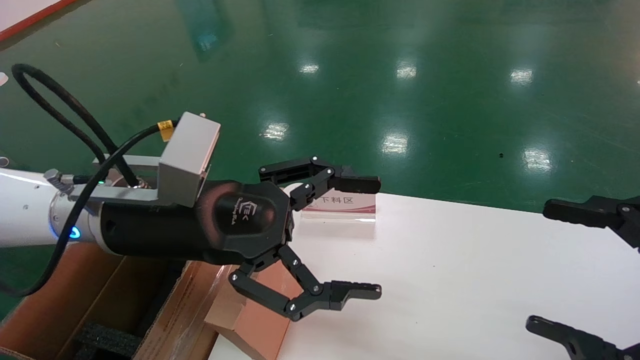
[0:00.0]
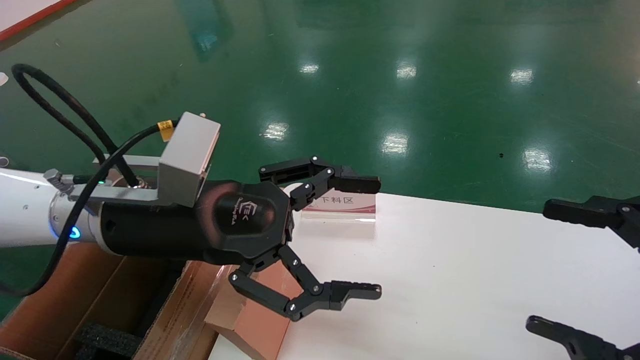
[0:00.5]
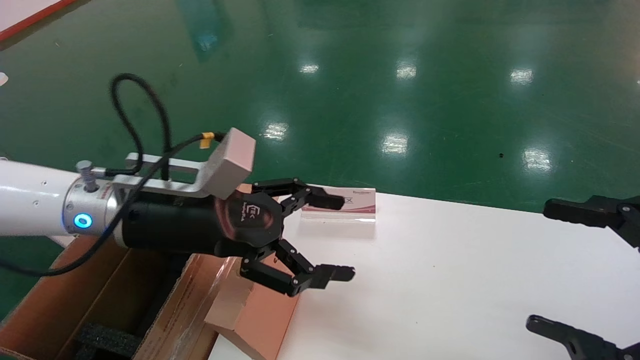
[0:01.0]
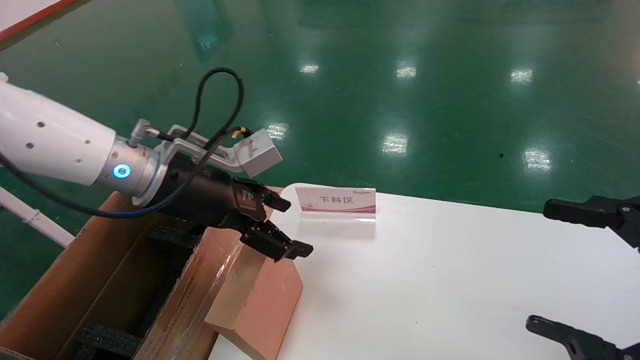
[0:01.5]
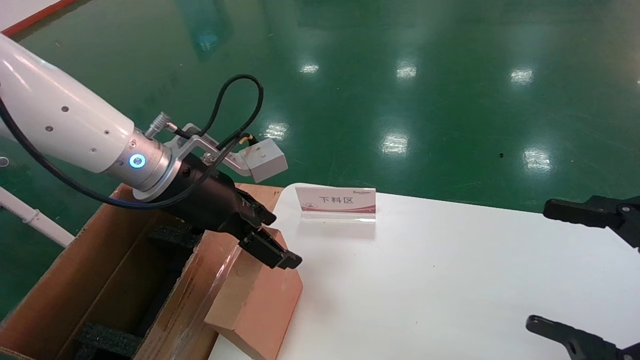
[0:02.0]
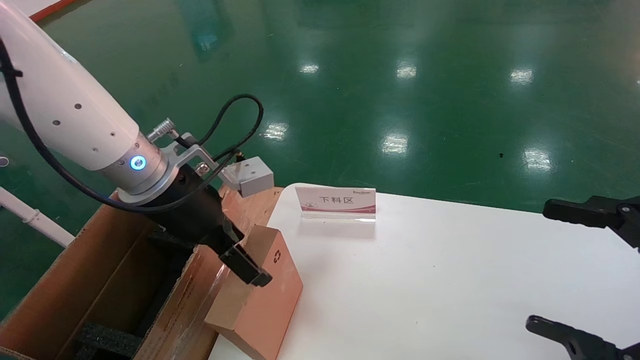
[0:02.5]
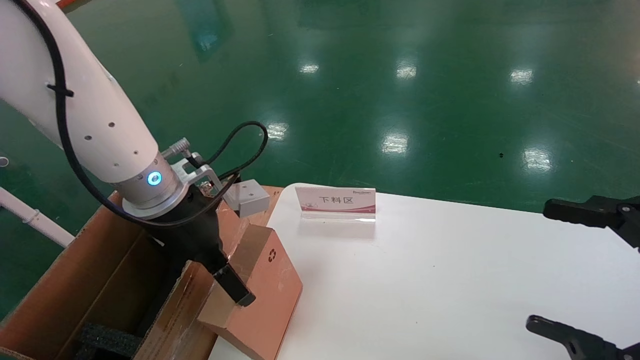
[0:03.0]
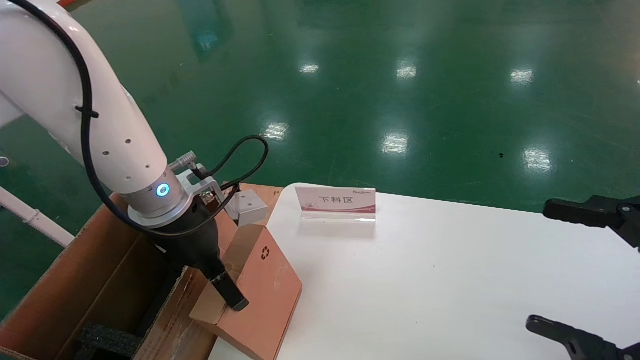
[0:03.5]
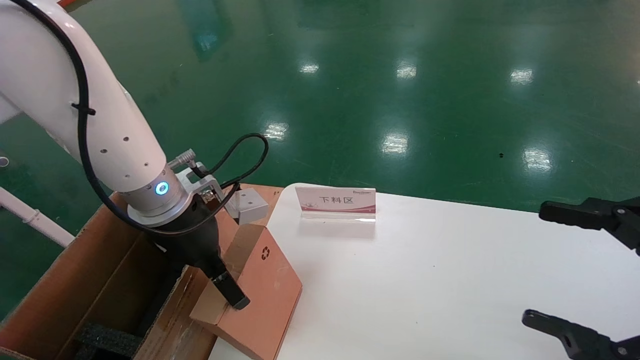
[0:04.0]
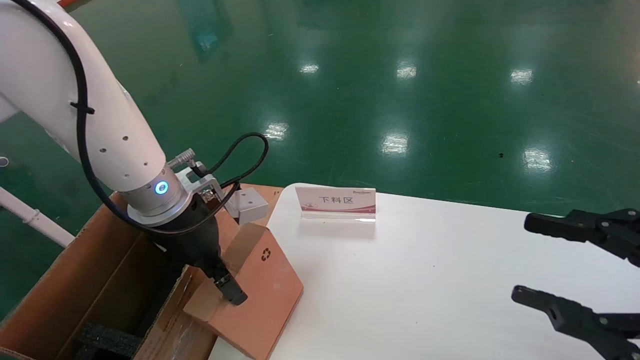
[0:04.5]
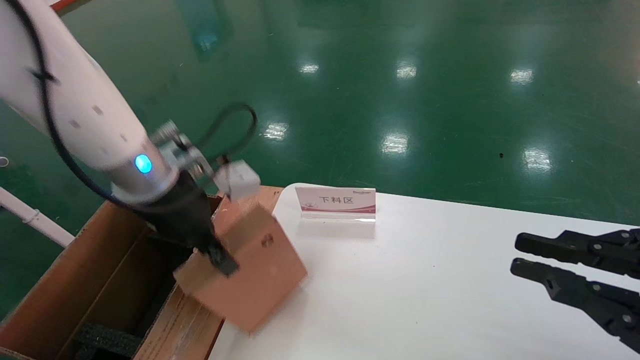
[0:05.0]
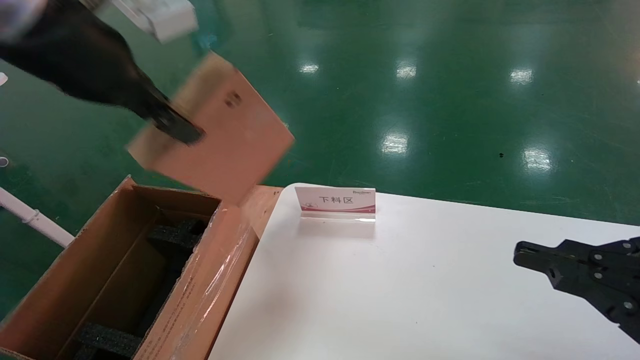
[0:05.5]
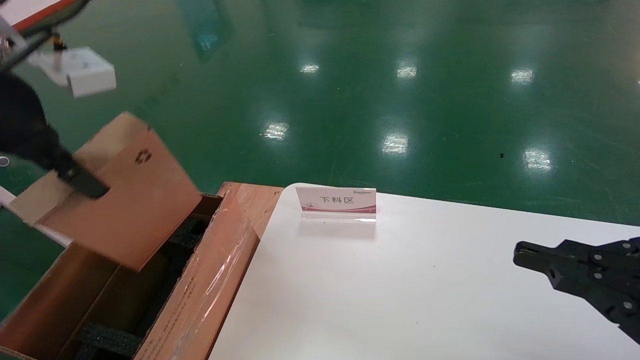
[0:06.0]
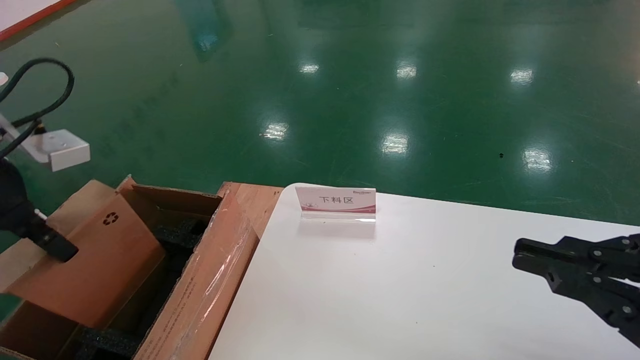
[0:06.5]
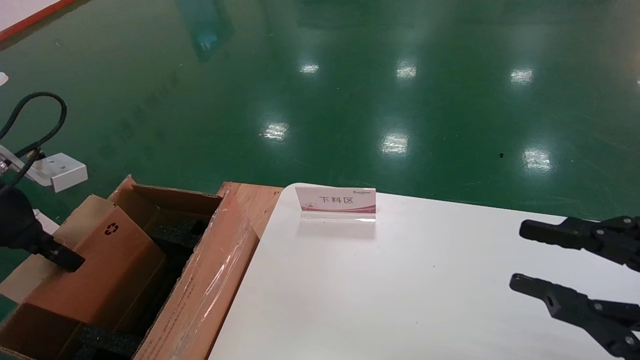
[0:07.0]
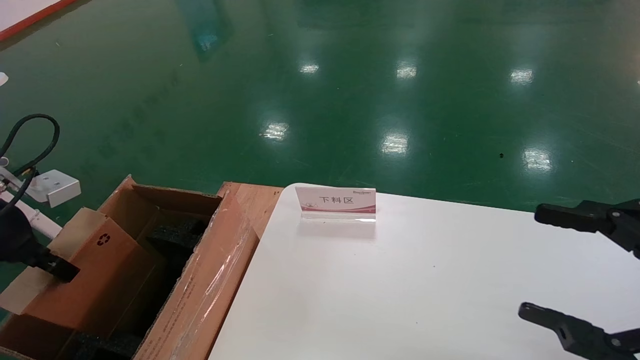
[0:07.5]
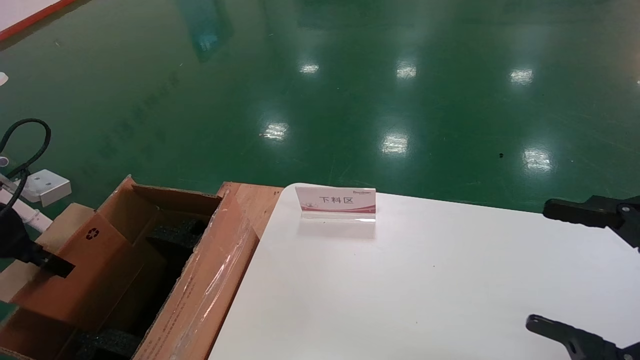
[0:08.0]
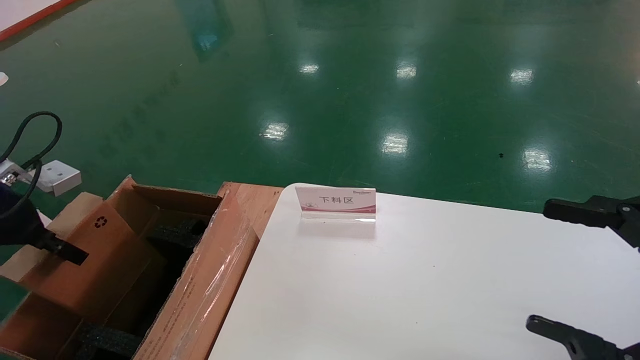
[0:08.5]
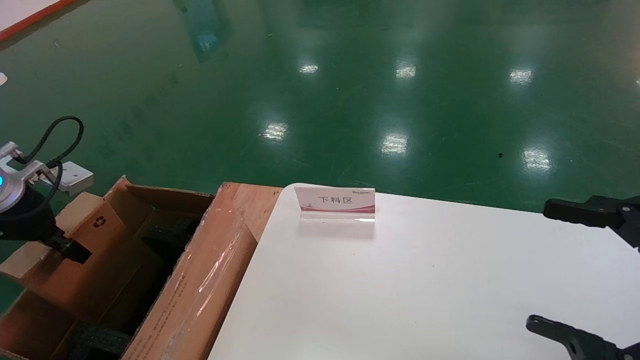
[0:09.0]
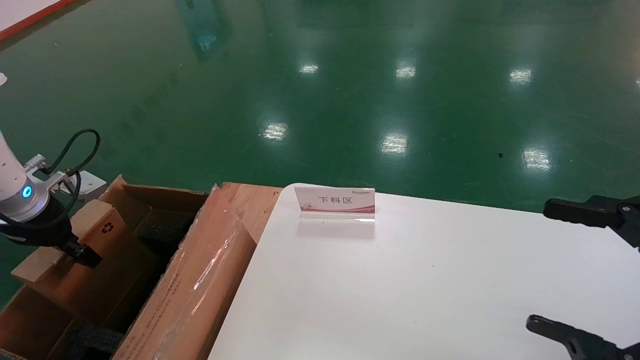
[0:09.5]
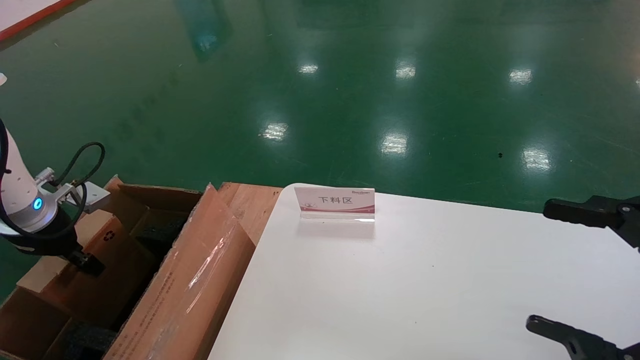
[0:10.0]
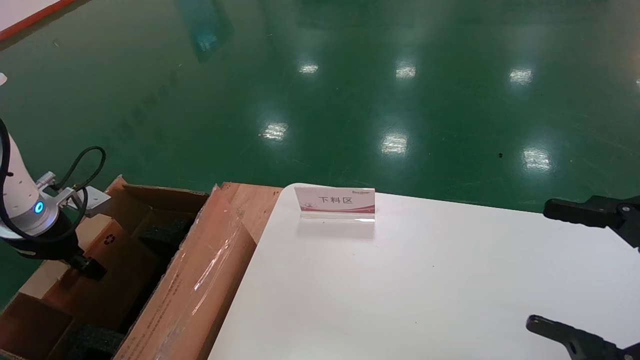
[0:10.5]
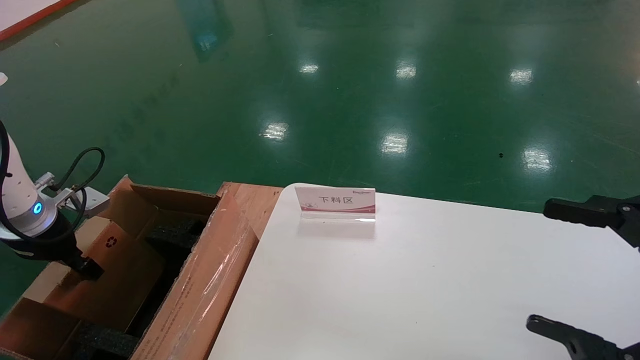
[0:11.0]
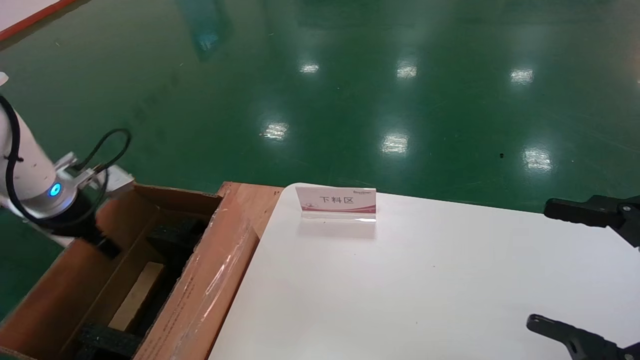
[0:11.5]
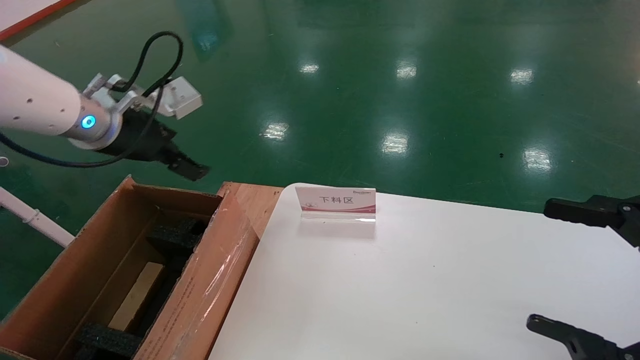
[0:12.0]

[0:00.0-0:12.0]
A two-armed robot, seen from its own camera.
Task of the whole recording: pick up the small cardboard box and load it into the large cardboard box.
Step, 0:01.5 to 0:05.5: Pick up the mouse and power cord box.
Step, 0:06.0 to 0:12.0: Place the mouse and power cord box into the case.
0:00.0 to 0:02.0: The left gripper is displaced forward by approximately 5 cm.
0:04.0 to 0:06.0: The right gripper closes. Meanwhile the left gripper heads upward, backward and to the left, covering about 20 cm, and closes up.
0:06.0 to 0:08.0: The left gripper is displaced downward and to the left by approximately 20 cm. The right gripper opens.
0:08.0 to 0:10.0: The left gripper heads forward and downward, covering some 10 cm.
0:10.0 to 0:12.0: The left gripper goes approximately 15 cm to the right and upward, and opens up.

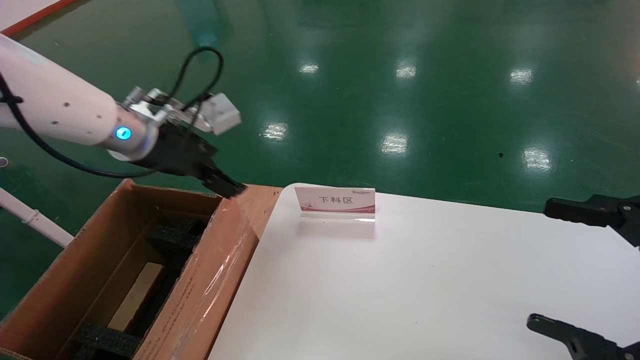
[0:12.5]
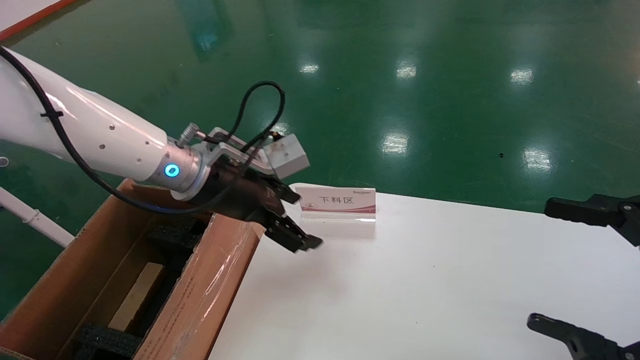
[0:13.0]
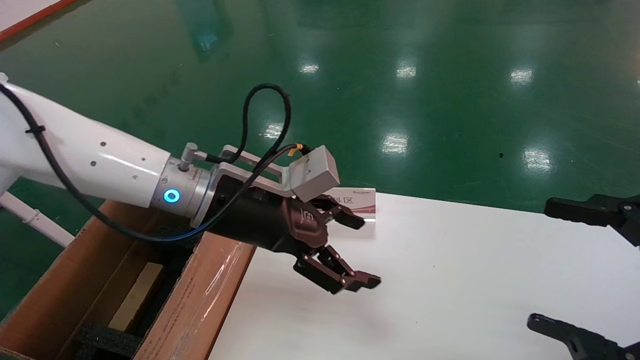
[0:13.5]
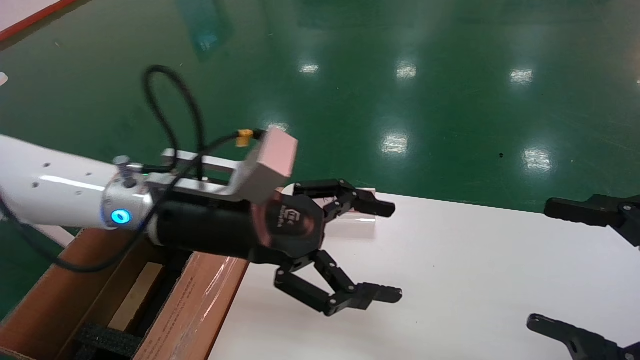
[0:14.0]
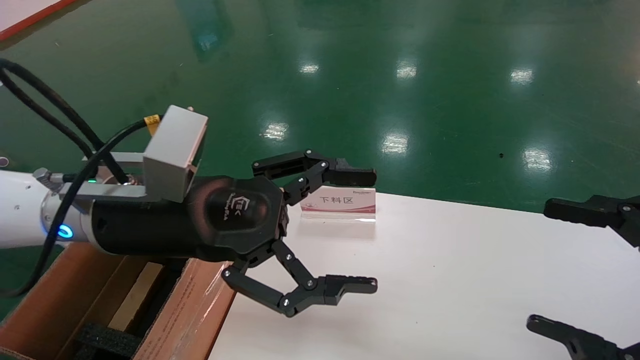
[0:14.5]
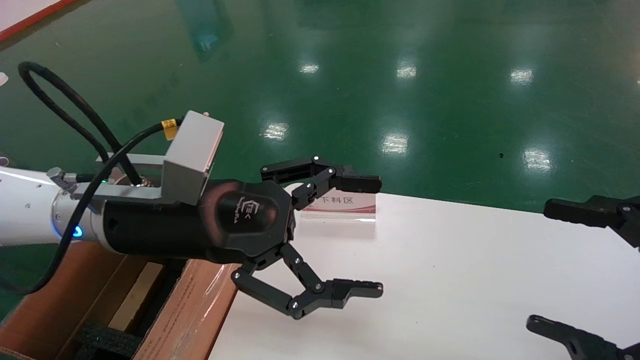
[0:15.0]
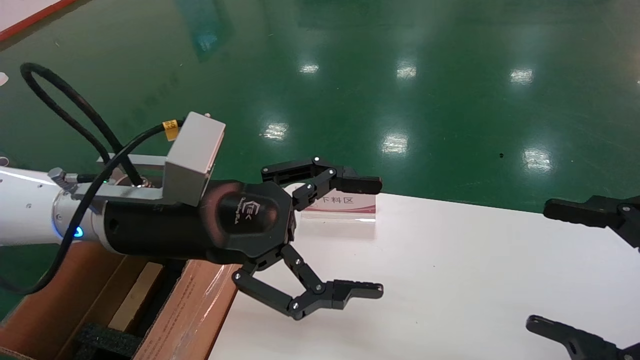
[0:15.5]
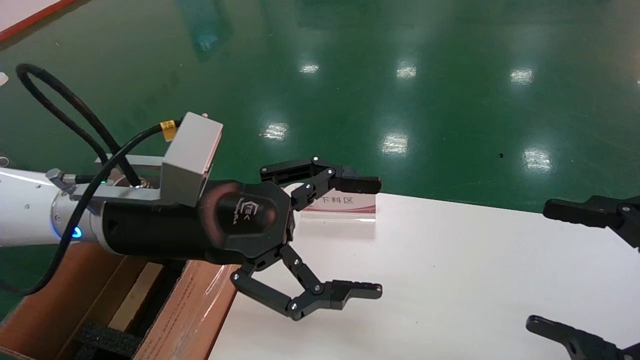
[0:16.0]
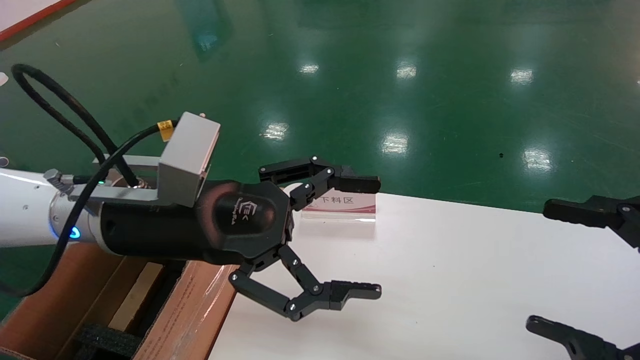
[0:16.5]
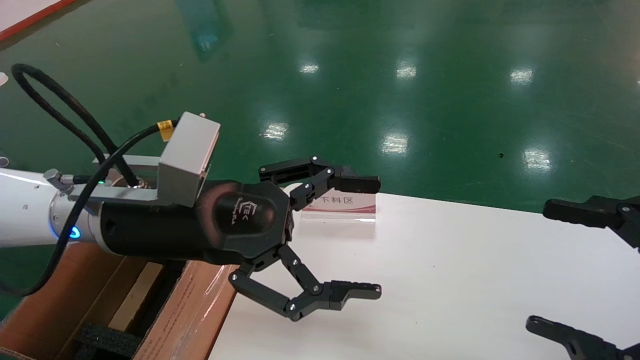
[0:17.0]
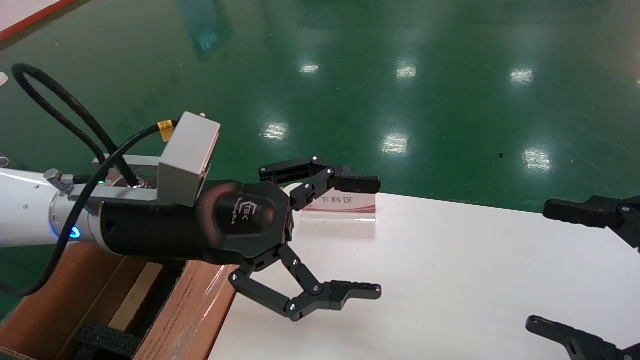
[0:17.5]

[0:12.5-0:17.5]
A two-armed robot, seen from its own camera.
Task of the whole recording: pick up the small cardboard box and load it into the large cardboard box.
0:12.5 to 0:15.0: The left gripper moves backward and to the right, about 15 cm.
0:15.0 to 0:17.5: Neither gripper changes place.
